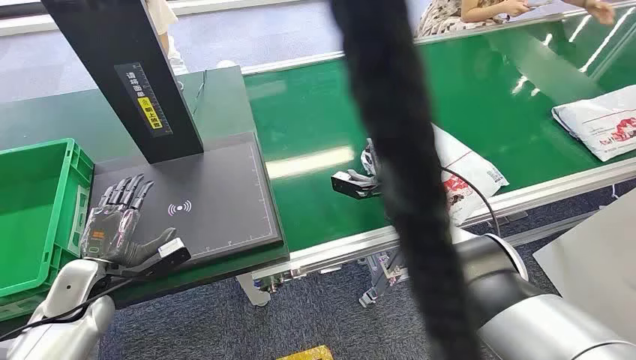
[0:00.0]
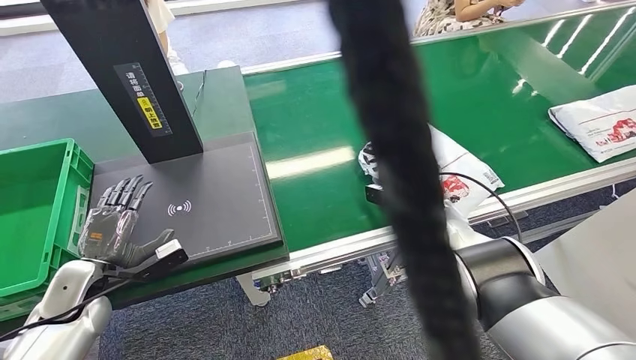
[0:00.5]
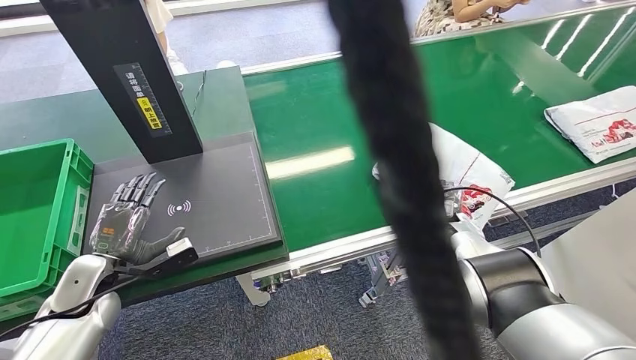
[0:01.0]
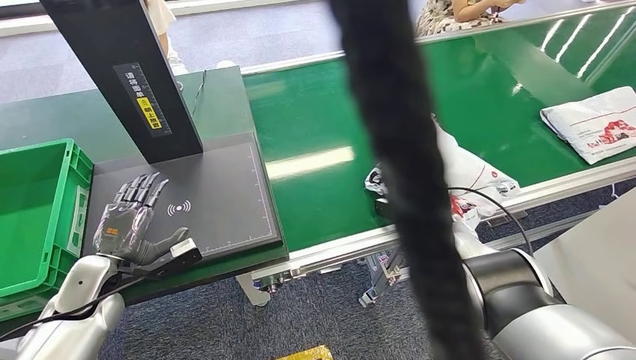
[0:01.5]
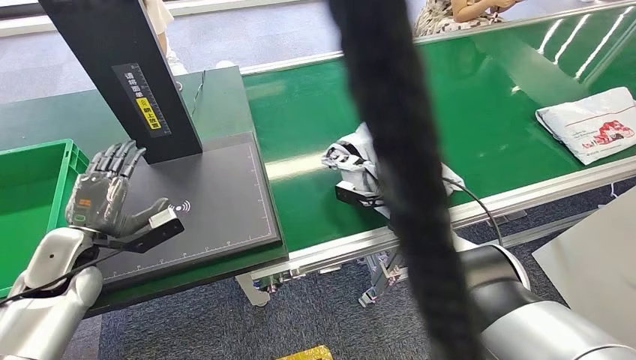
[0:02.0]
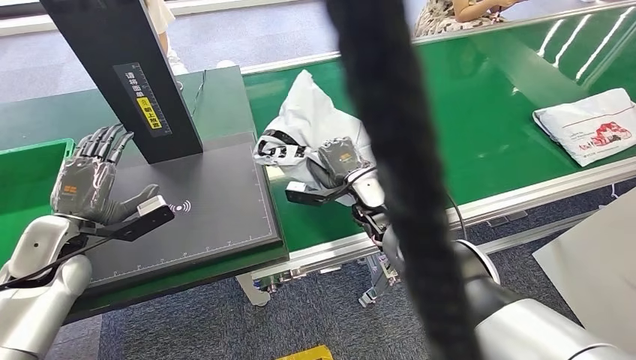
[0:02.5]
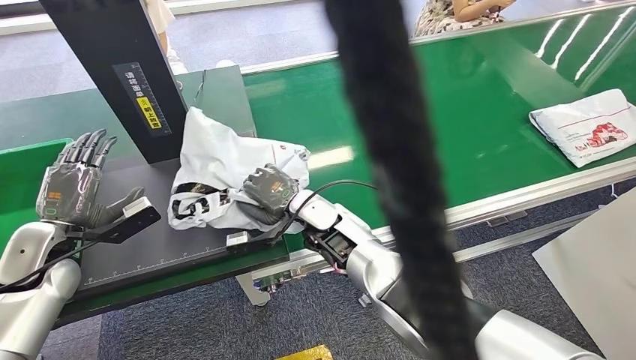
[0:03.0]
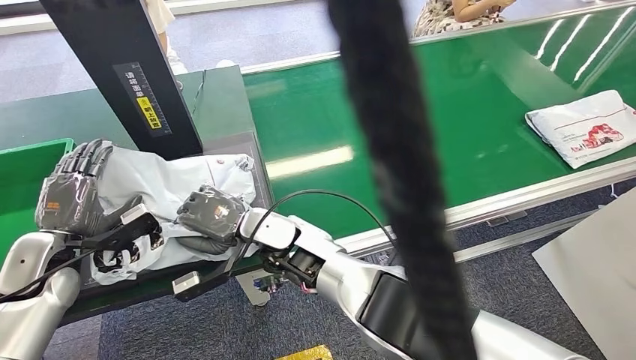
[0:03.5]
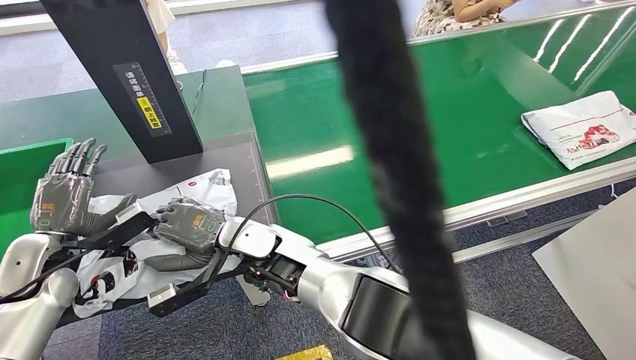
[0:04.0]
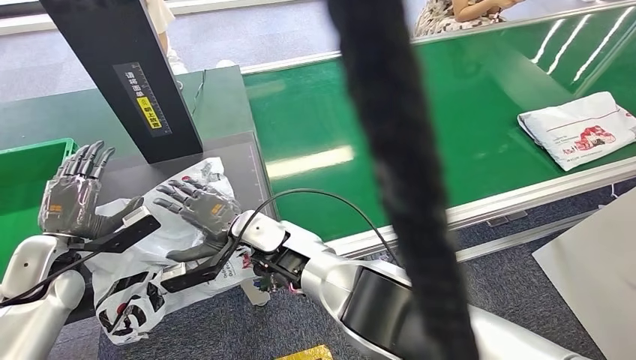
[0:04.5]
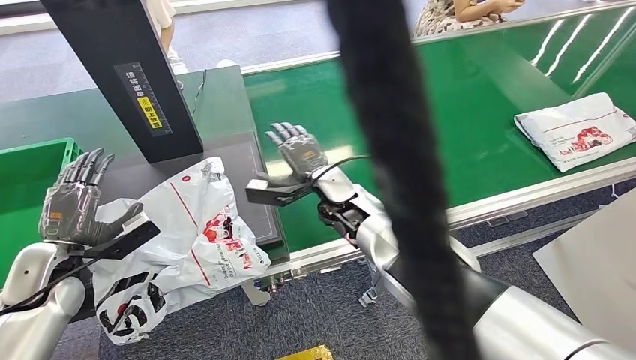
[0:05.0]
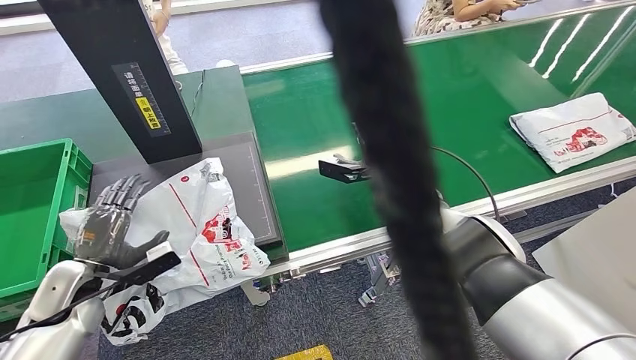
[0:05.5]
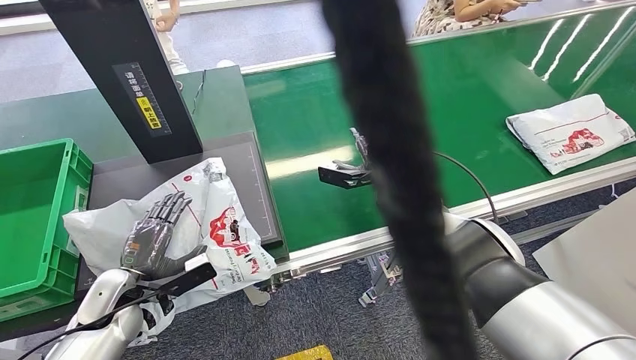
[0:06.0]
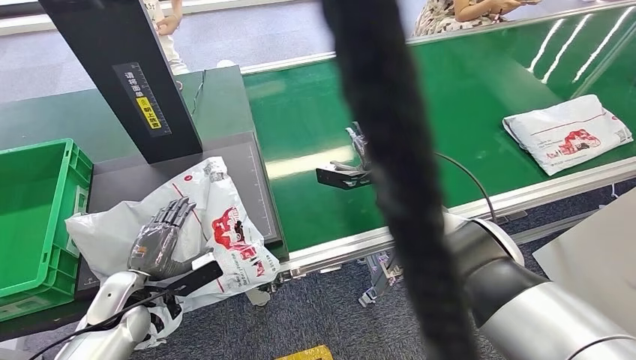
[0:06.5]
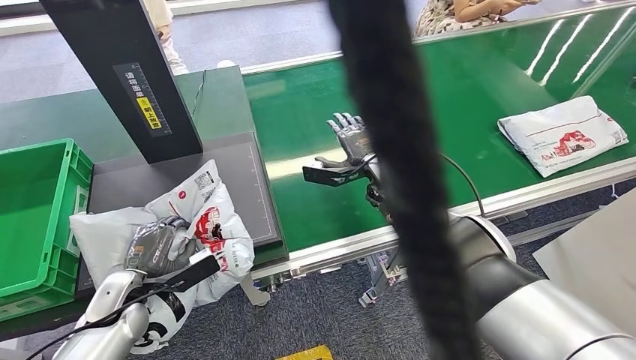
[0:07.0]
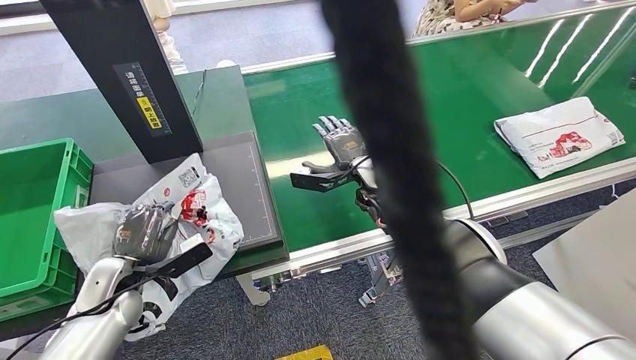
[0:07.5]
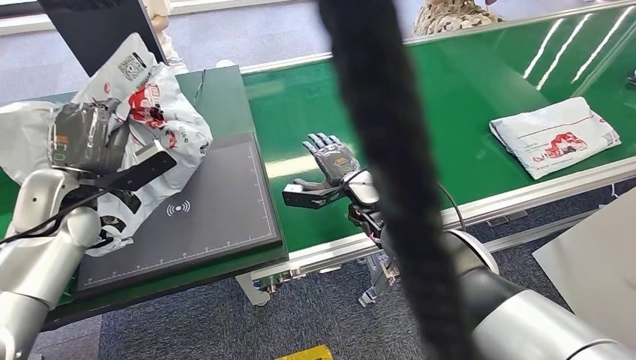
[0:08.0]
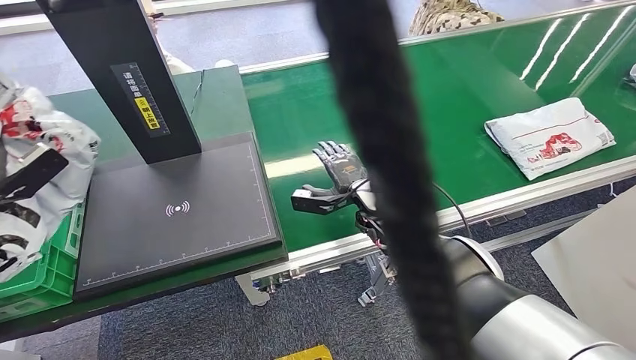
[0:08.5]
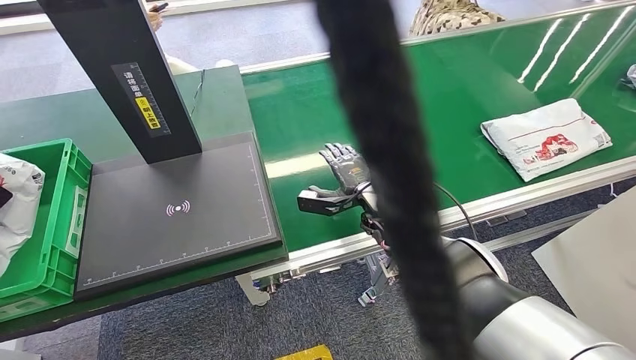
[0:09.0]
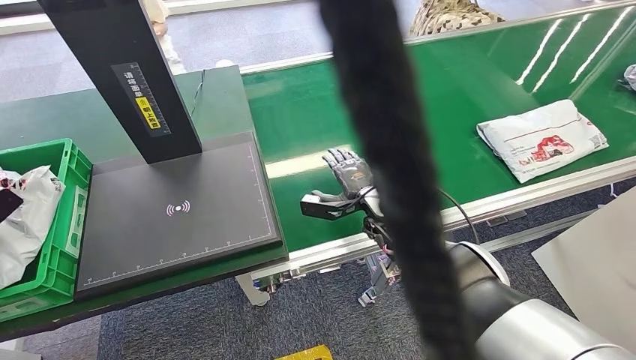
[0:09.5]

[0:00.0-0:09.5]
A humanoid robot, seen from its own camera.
Task of the whole recording: Weigh the package on the weighing device and place it in the left basket.
Step, 0:00.0 to 0:02.0: Pick up the package from the conveyor belt.
Step, 0:02.5 to 0:04.5: Place the package onto the inbound machine.
Step, 0:05.0 to 0:07.5: Pick up the package from the inbound machine.
Step, 0:08.0 to 0:09.5: Place the package into the parcel locker.
